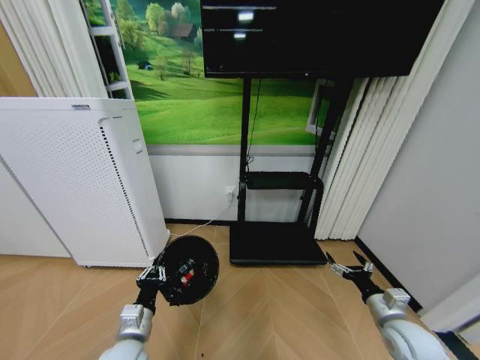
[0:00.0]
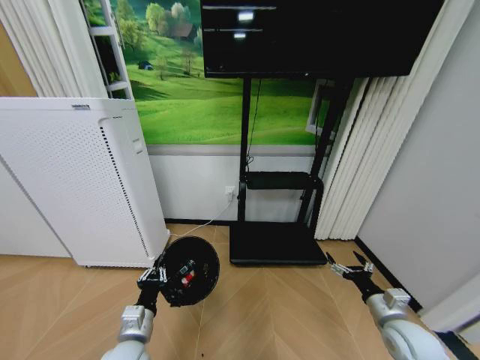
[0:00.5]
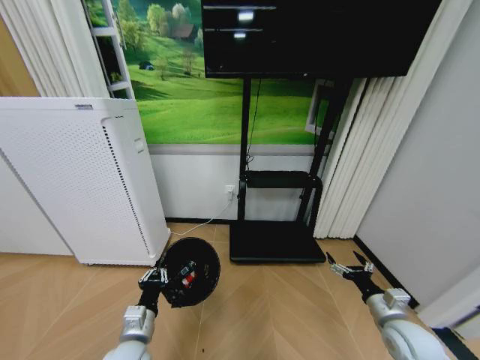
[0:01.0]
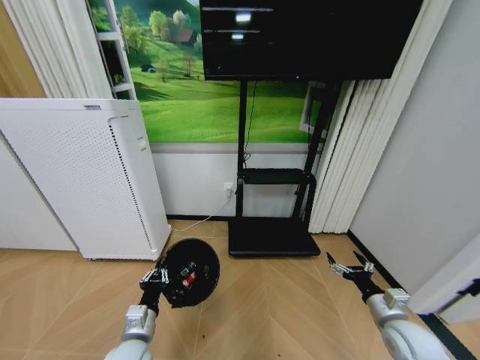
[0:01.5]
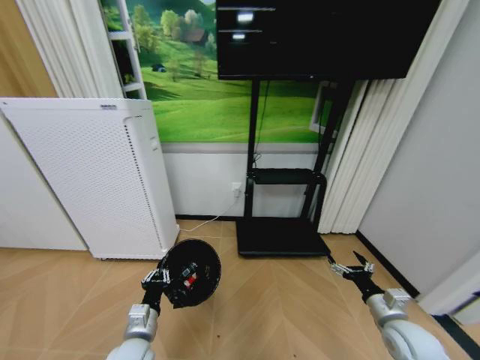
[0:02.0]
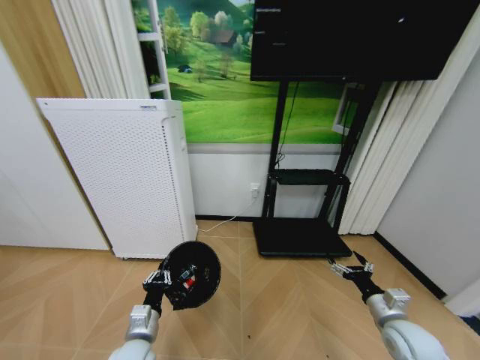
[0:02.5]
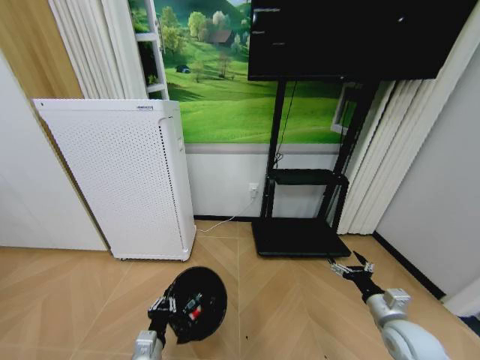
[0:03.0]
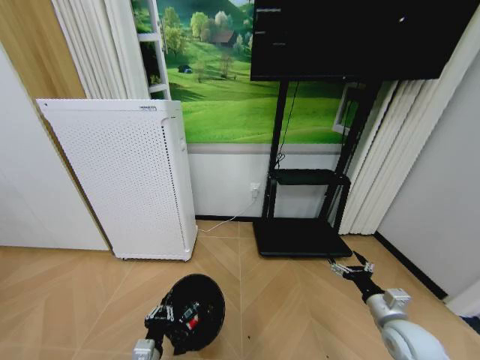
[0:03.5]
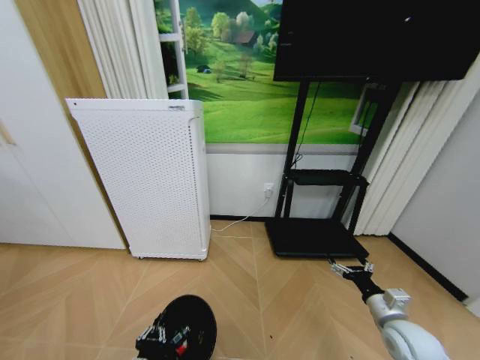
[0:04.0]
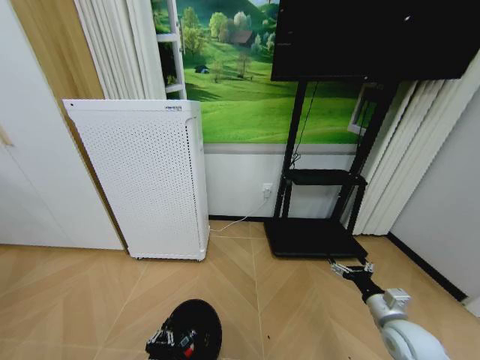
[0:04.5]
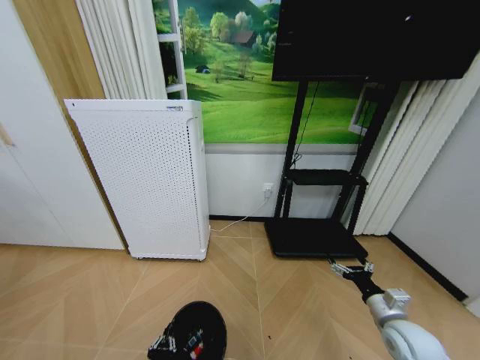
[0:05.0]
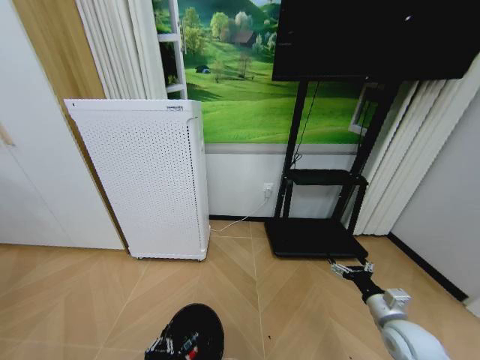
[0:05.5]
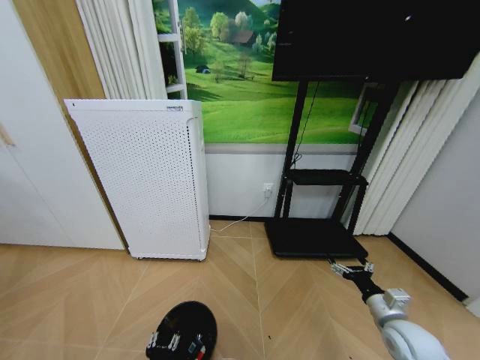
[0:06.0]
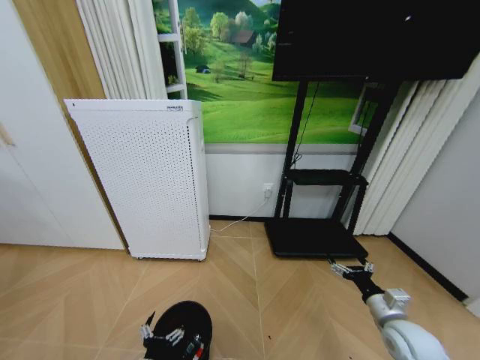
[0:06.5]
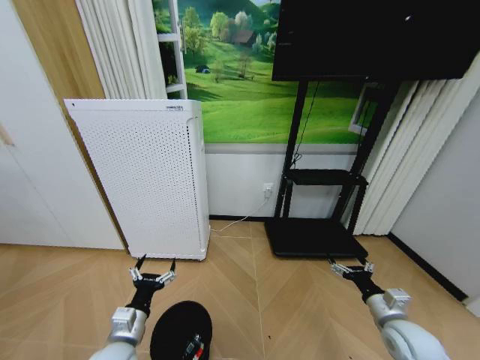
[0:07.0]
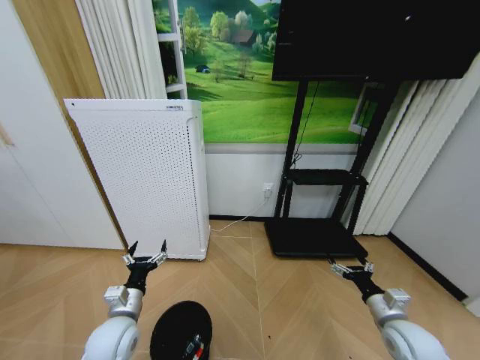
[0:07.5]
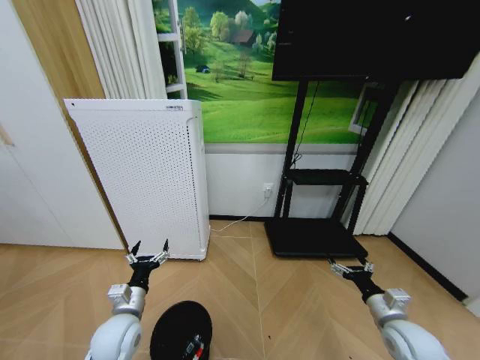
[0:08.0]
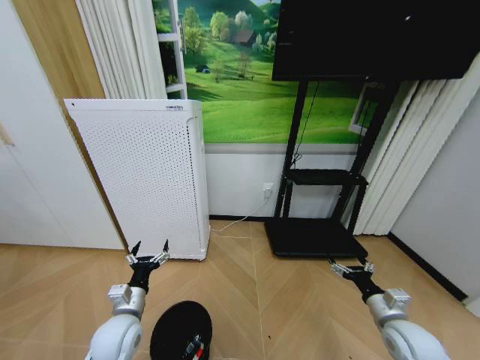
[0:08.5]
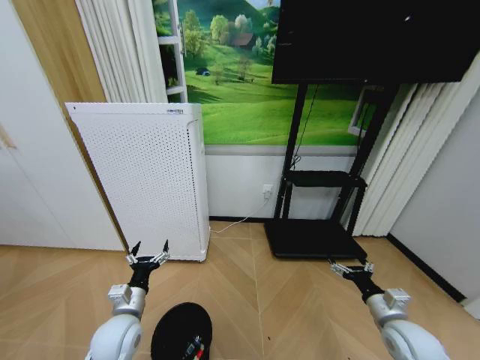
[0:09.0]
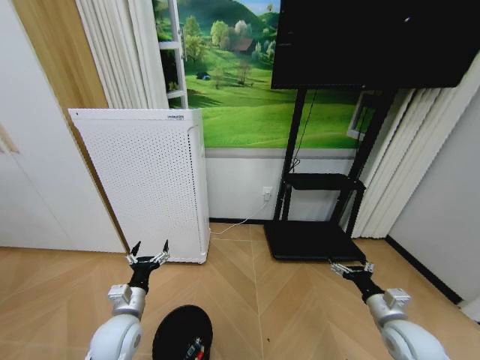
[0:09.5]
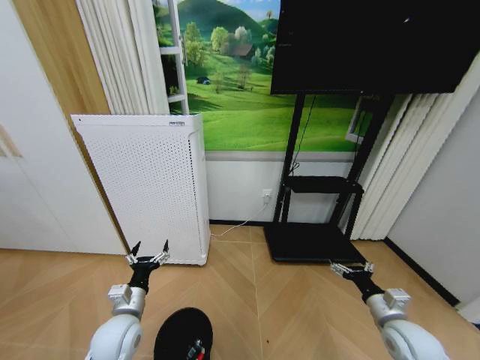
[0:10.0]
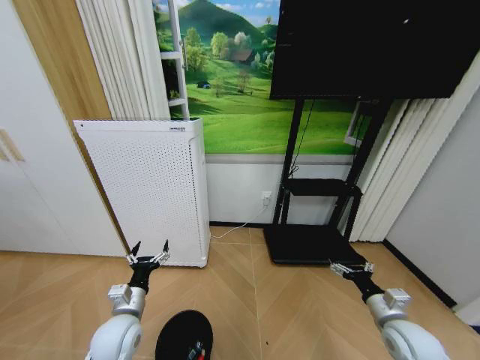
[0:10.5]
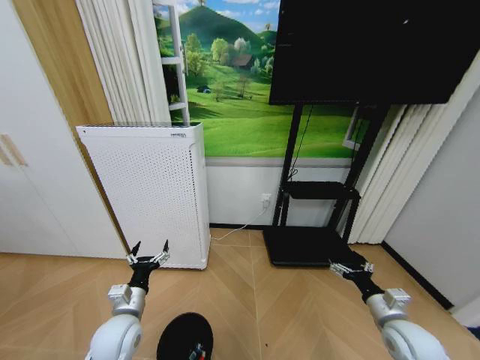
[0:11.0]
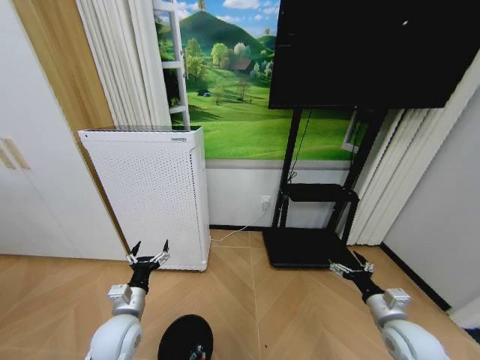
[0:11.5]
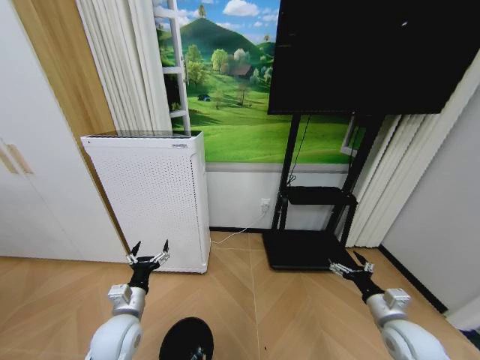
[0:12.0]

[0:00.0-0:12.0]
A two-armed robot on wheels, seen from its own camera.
Task of the whole recording: Pick up the trash bin and place the garbage on the floor into it.
0:02.0 to 0:04.0: The left gripper heads backward and downward, covering some 10 cm.
0:04.0 to 0:06.0: The grippers stay close to where they were, moving slightly.
0:06.0 to 0:08.0: The left gripper moves forward and upward, approximately 20 cm, and opens its fingers.
0:08.0 to 0:12.0: Both grippers stay about where they are.

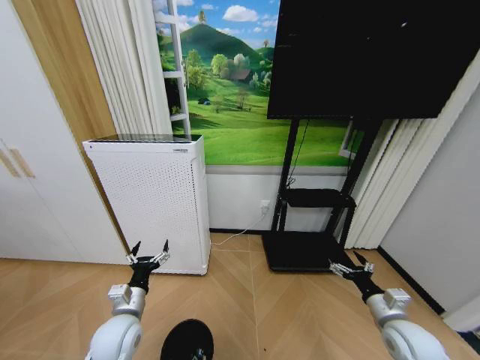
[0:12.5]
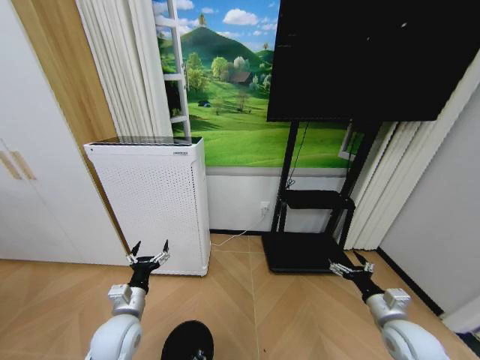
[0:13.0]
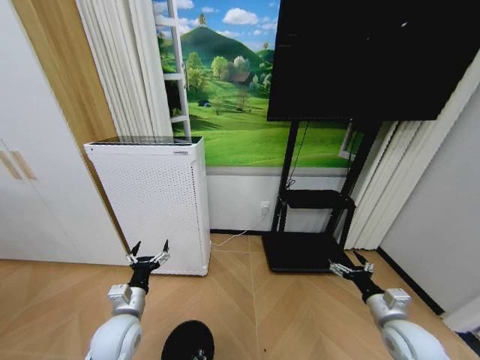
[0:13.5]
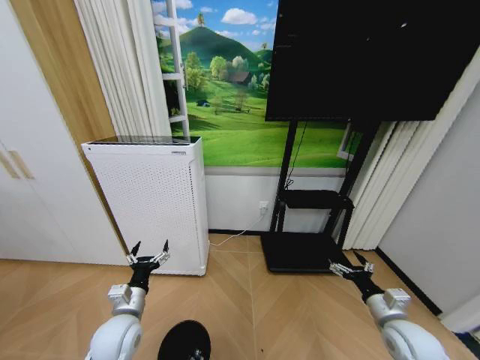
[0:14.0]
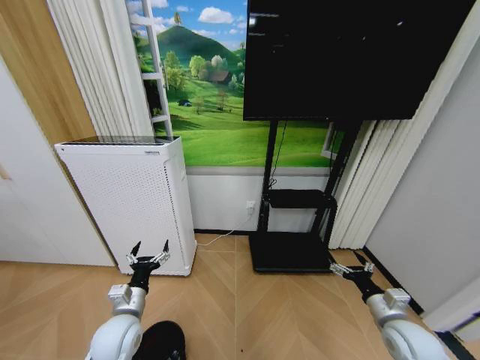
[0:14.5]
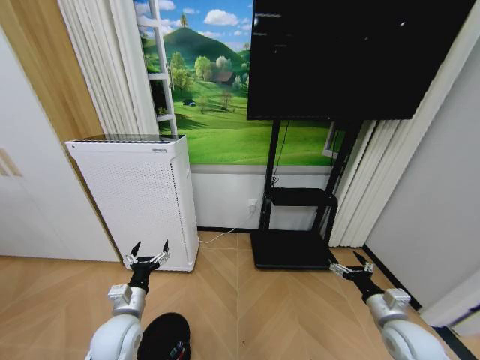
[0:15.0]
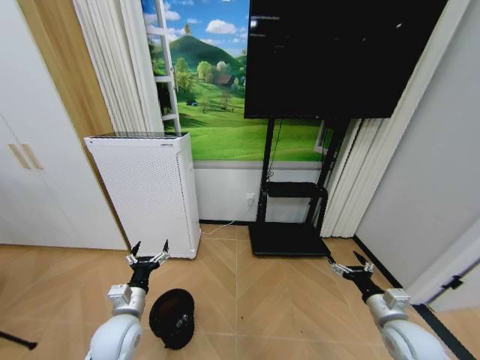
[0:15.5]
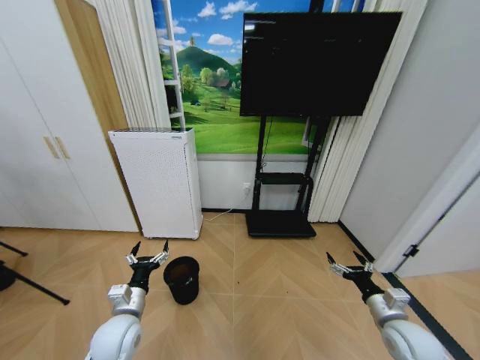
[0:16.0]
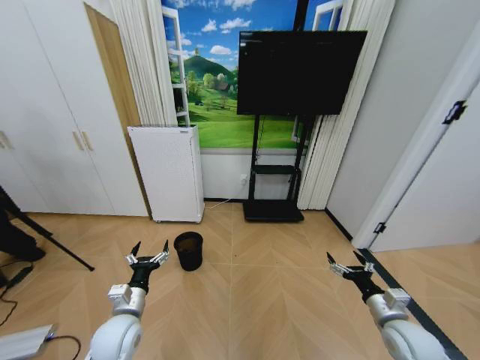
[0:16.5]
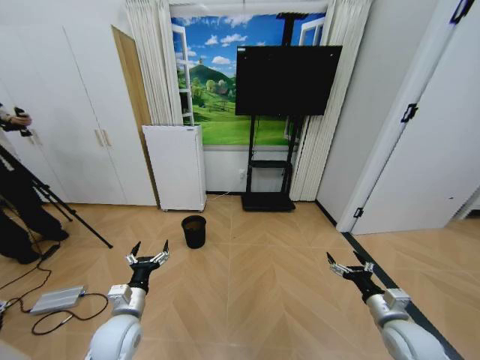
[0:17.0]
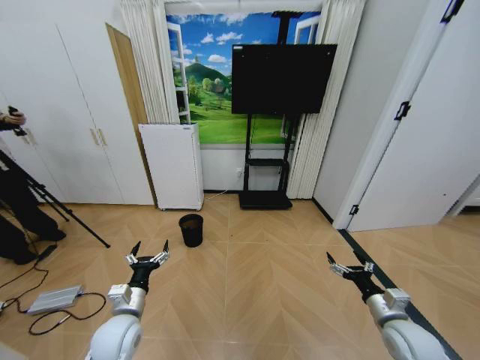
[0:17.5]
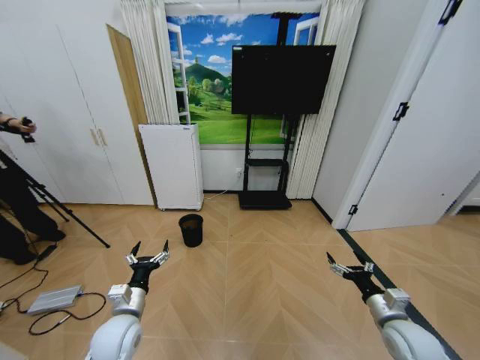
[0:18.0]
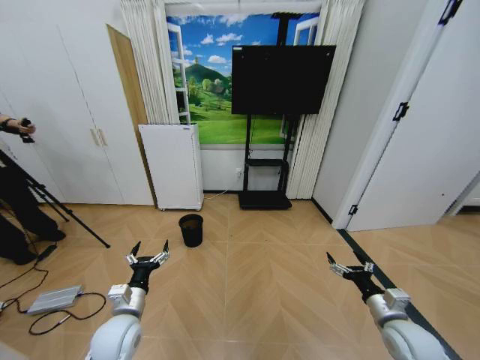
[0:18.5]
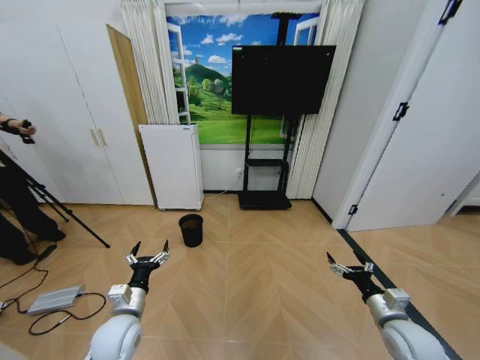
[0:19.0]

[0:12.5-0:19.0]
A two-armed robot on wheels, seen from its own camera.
Task of the whole recording: Pick up the trash bin and place the garbage on the floor into it.
0:17.0 to 0:19.0: The two grippers keep their place.
